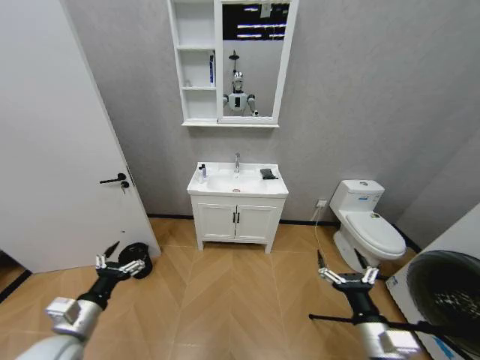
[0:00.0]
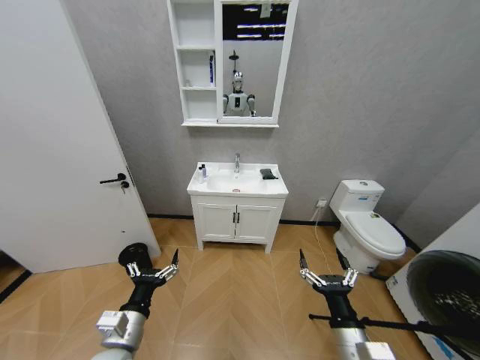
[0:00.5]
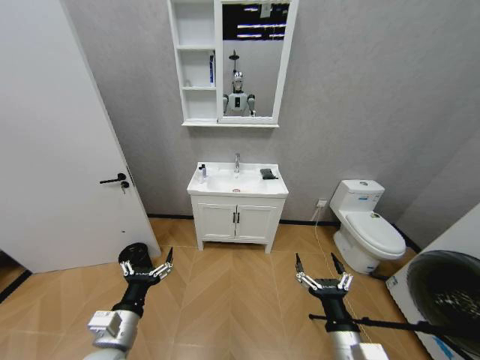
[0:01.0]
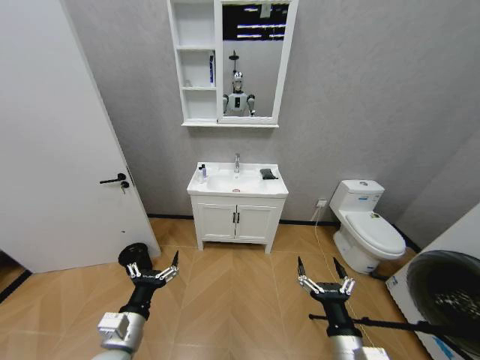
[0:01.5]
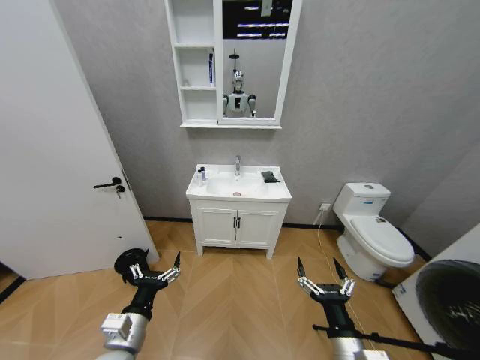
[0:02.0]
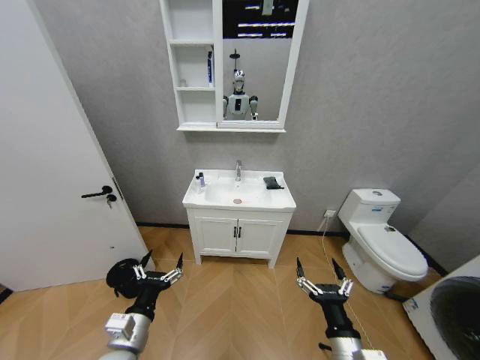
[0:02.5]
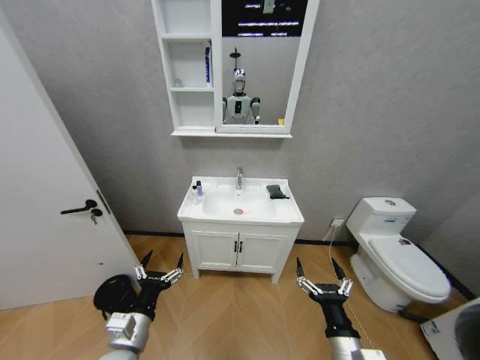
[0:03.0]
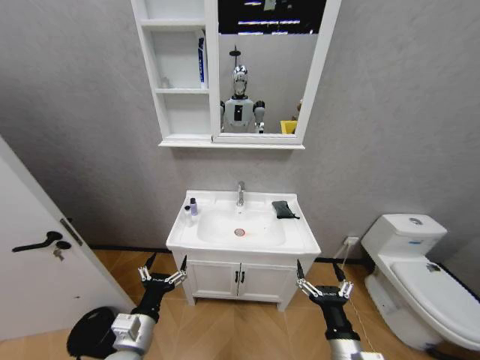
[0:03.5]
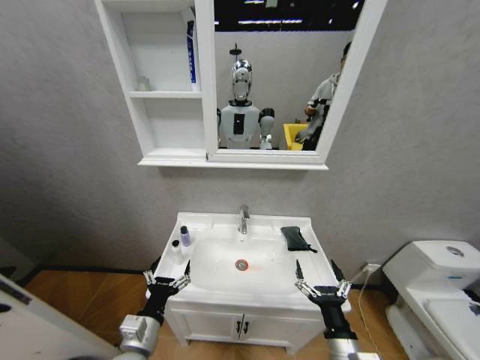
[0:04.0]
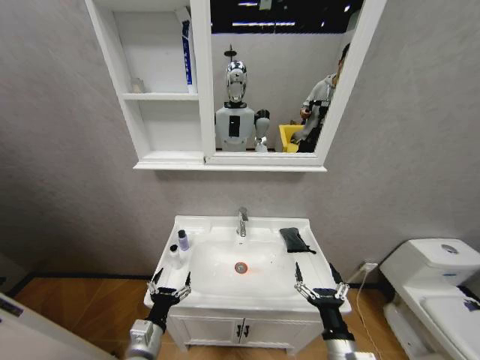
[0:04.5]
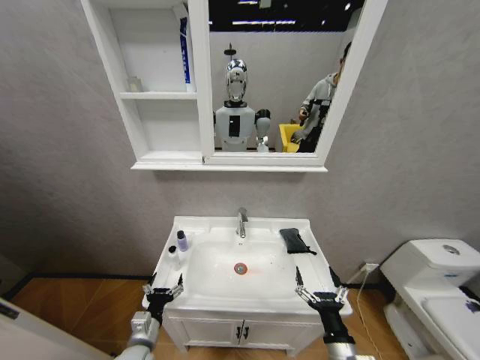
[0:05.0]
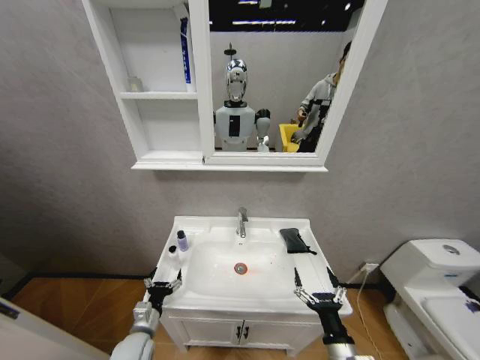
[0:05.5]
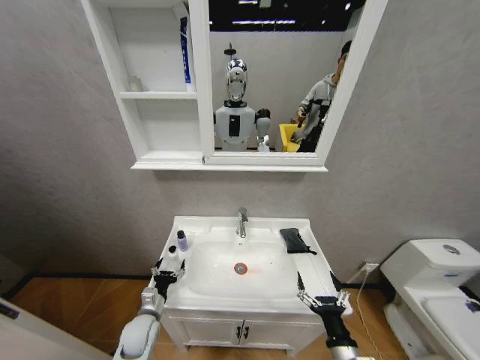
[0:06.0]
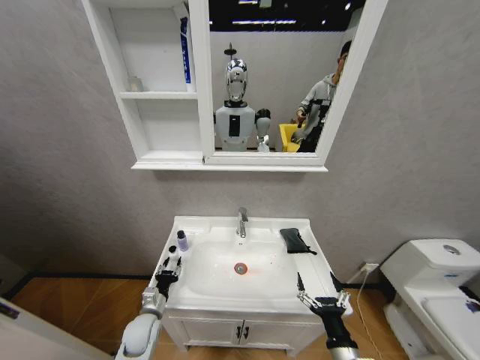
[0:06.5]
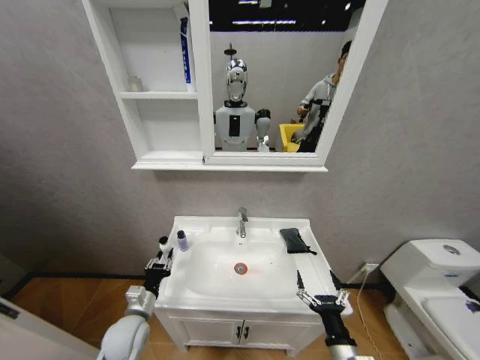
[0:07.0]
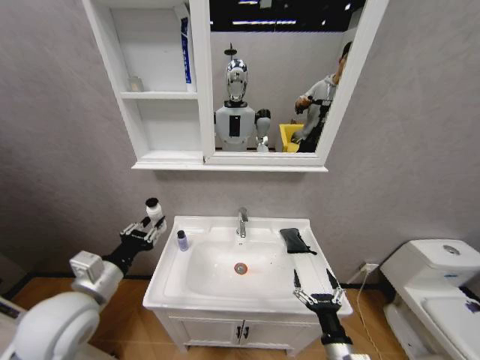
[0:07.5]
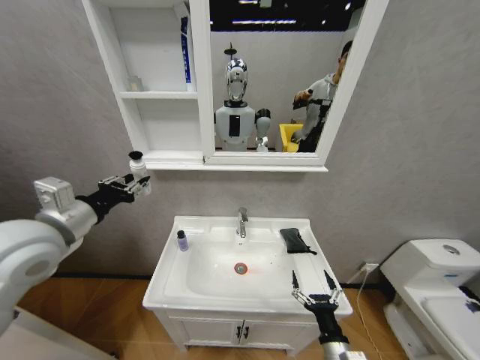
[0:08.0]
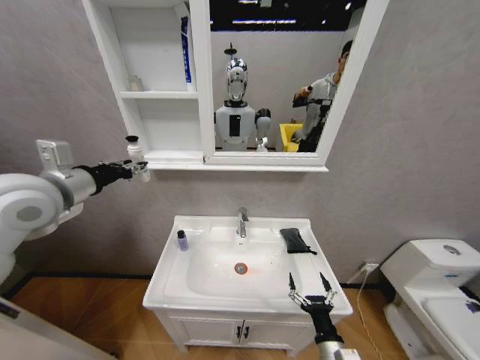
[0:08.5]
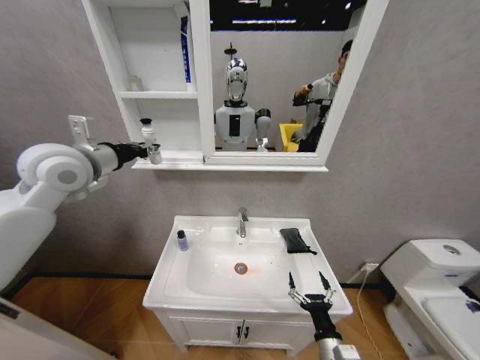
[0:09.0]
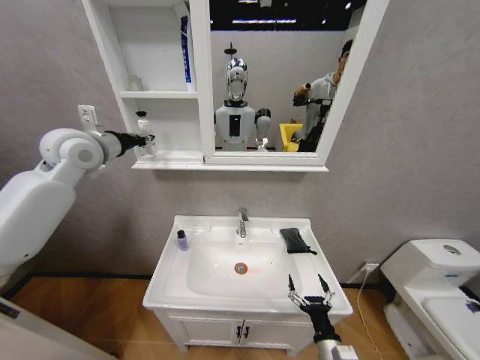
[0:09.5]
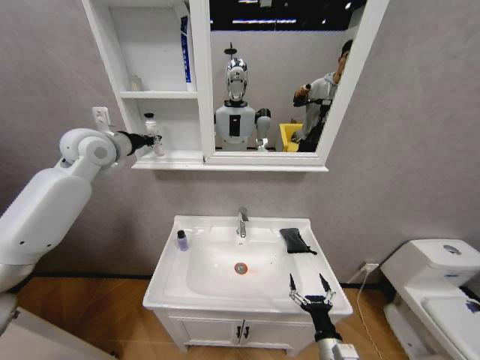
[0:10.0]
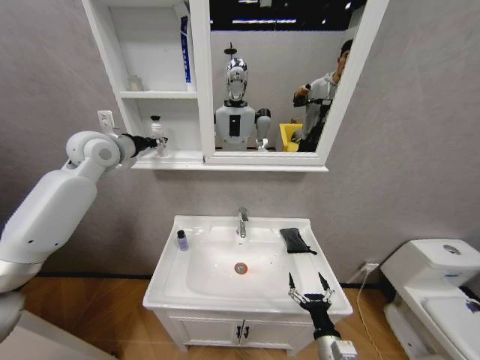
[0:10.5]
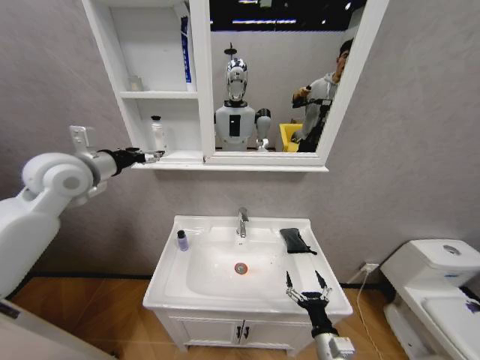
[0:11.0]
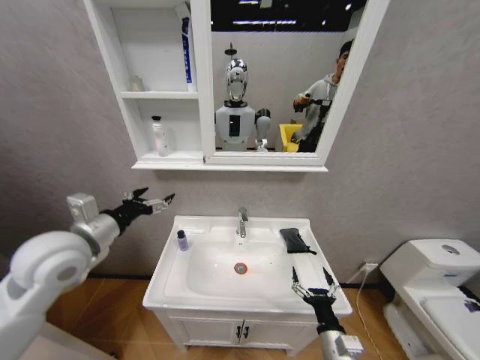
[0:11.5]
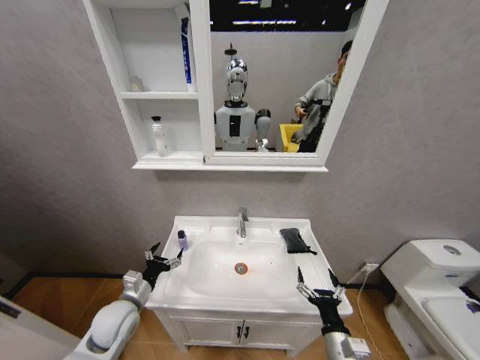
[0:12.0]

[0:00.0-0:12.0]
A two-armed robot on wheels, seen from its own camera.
Task of the whole recording: Move facial cleanser and shampoo from washbasin to cabinet, then wipe washbasin with towel.
0:04.0 to 0:06.0: The left gripper shifts about 15 cm downward and forward.
0:06.0 to 0:08.0: The left gripper travels upward by some 40 cm, and closes.
0:08.0 to 0:10.0: The left gripper goes roughly 20 cm forward and upward.
0:10.0 to 0:12.0: The left gripper shifts about 40 cm downward and backward, and opens.

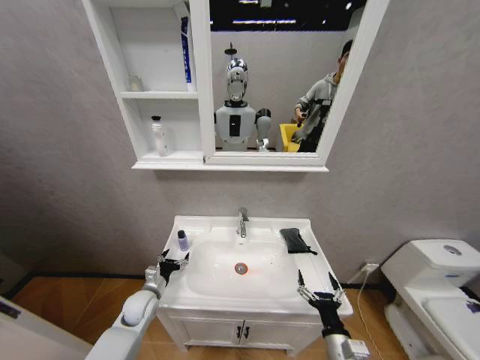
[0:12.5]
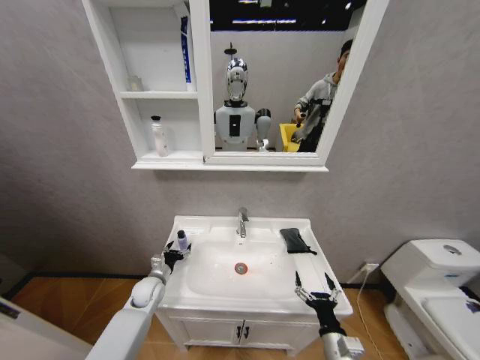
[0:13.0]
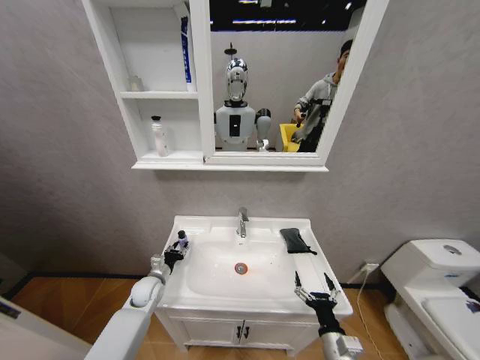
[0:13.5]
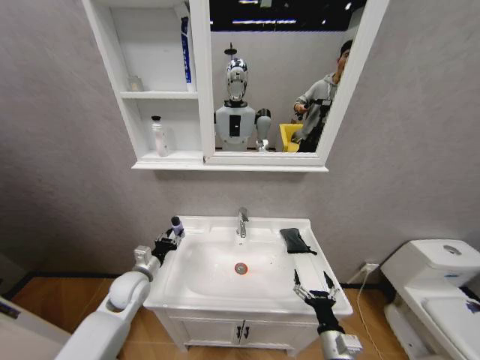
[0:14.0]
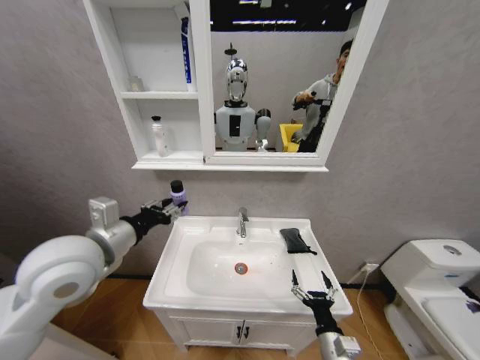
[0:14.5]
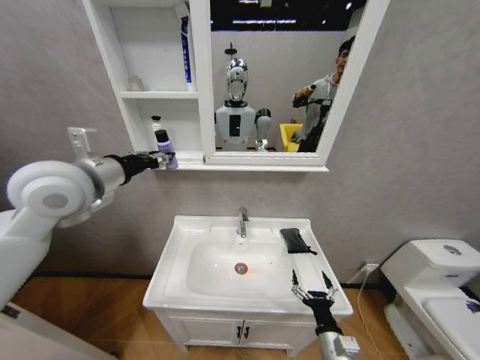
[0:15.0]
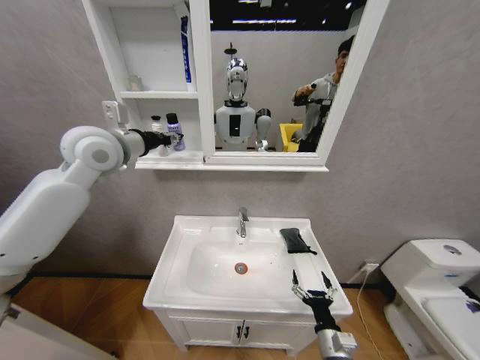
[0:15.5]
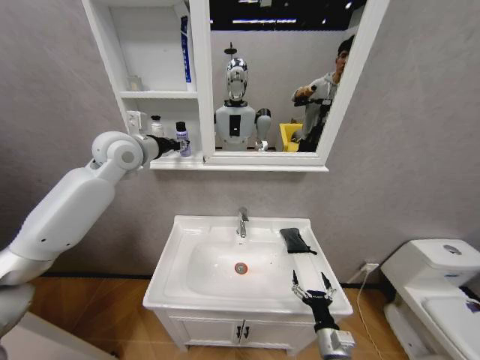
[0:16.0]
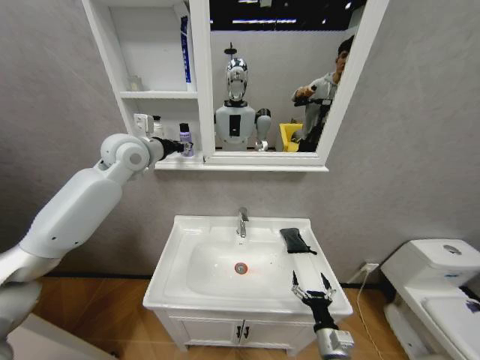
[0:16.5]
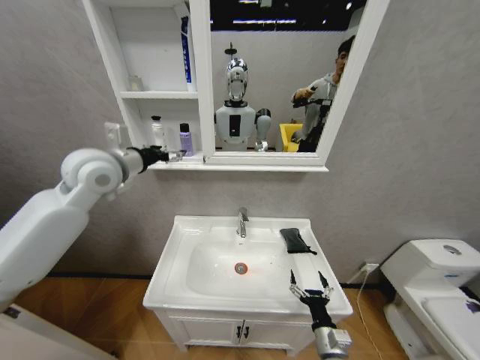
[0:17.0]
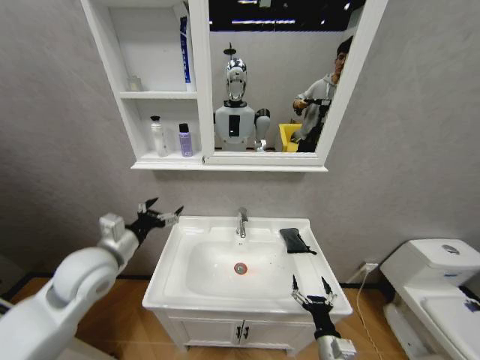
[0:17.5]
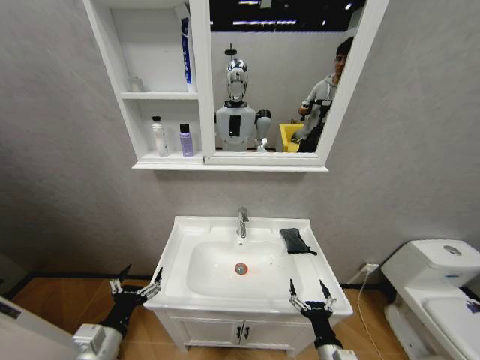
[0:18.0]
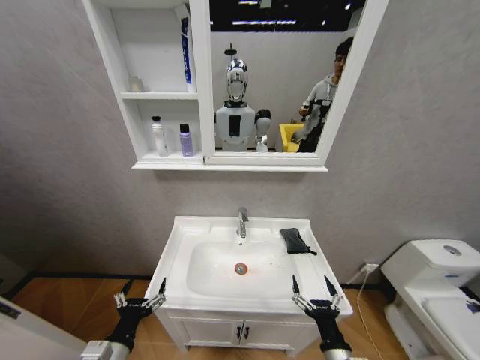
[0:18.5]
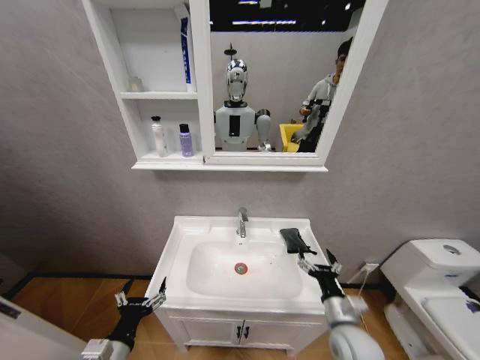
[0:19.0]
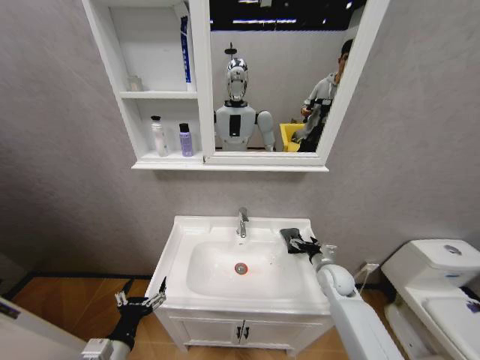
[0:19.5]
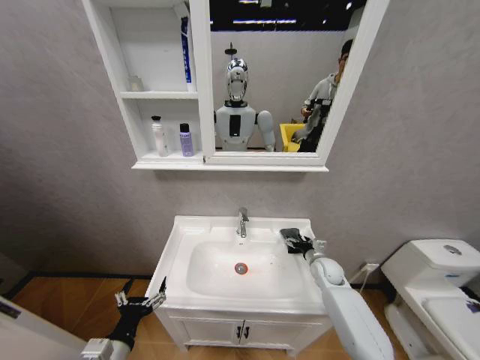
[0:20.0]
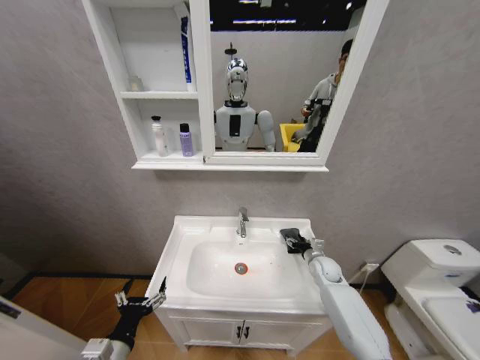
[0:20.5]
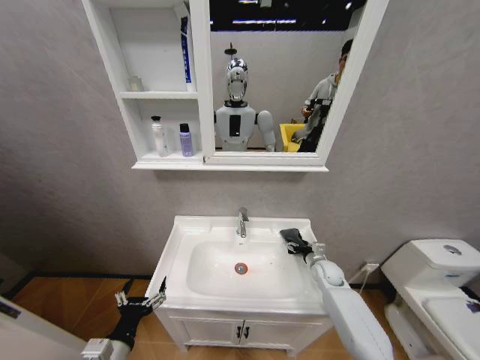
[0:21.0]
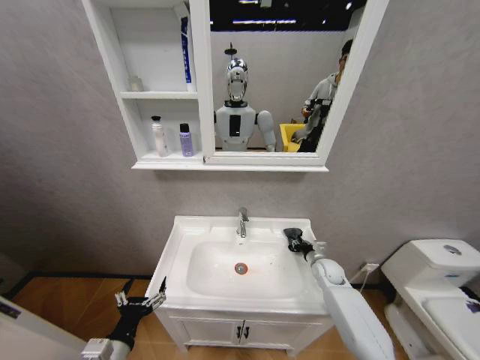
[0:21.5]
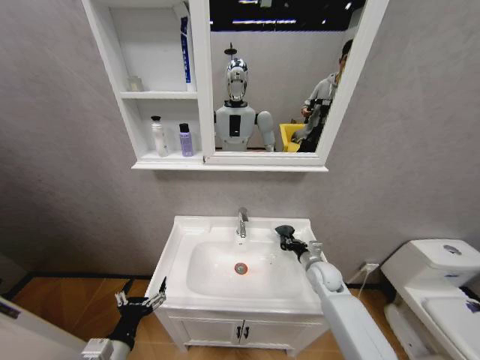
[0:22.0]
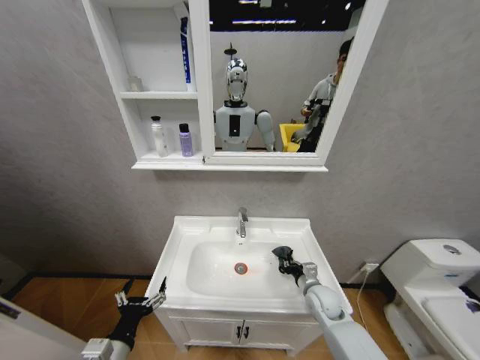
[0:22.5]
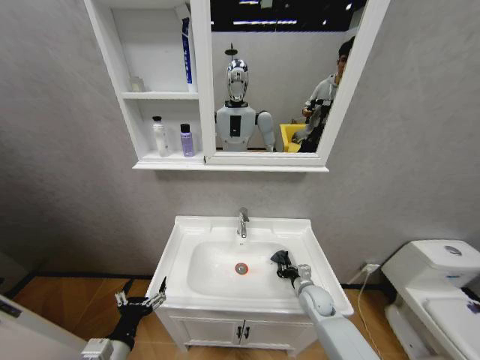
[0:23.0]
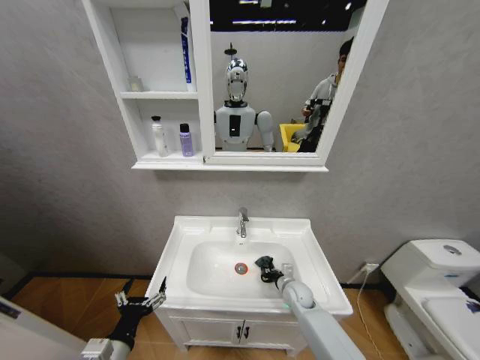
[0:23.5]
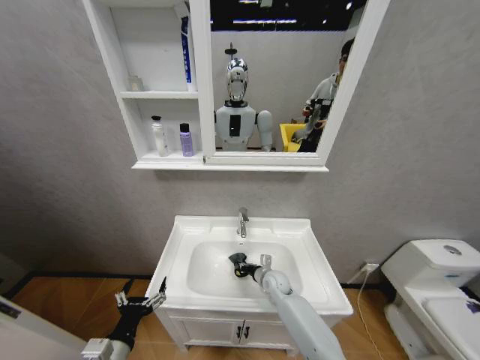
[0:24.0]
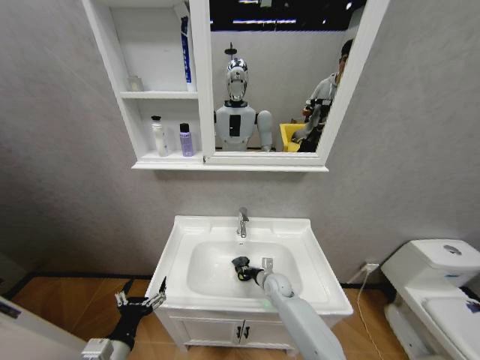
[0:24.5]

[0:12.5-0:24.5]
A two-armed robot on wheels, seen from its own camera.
Task of the whole recording: Move facial cleanser and shampoo from washbasin to cabinet, then wipe washbasin with towel.
0:12.5 to 0:14.5: The left gripper heads upward, covering about 35 cm, and closes its fingers.
0:14.5 to 0:16.5: The left gripper travels forward and upward by roughly 25 cm.
0:16.5 to 0:18.5: The left gripper travels downward and backward by some 50 cm, and opens, while the right gripper heads backward and upward, covering roughly 5 cm.
0:18.5 to 0:20.5: The right gripper is displaced forward by some 35 cm.
0:20.5 to 0:22.5: The right gripper is displaced backward and to the left by roughly 10 cm, and closes its fingers.
0:22.5 to 0:24.5: The right gripper goes approximately 15 cm to the left, forward and downward.

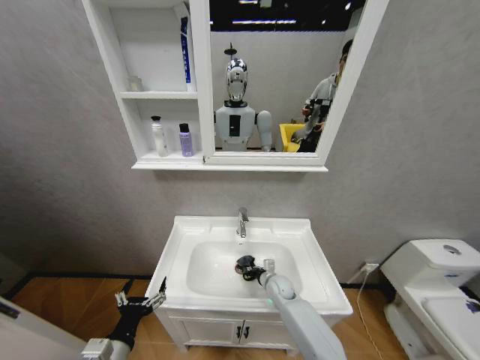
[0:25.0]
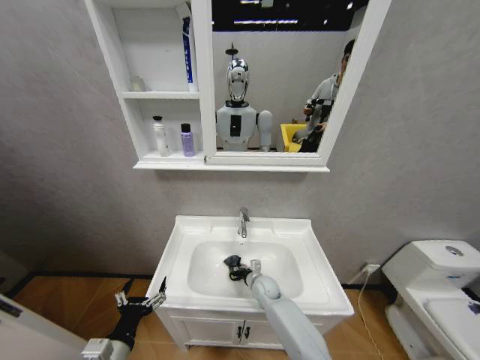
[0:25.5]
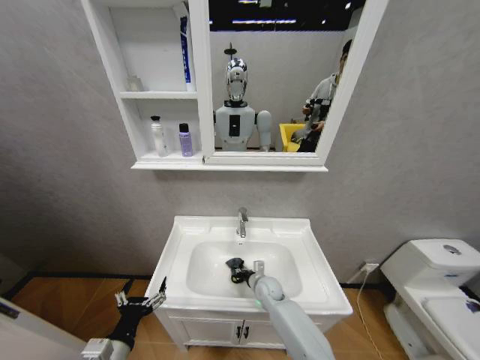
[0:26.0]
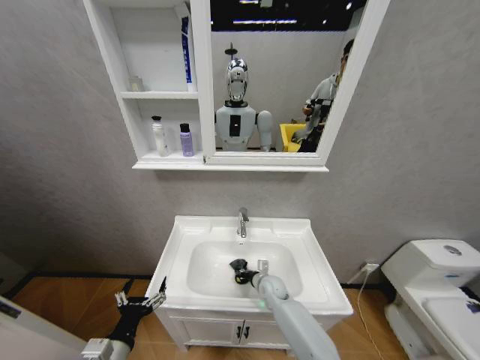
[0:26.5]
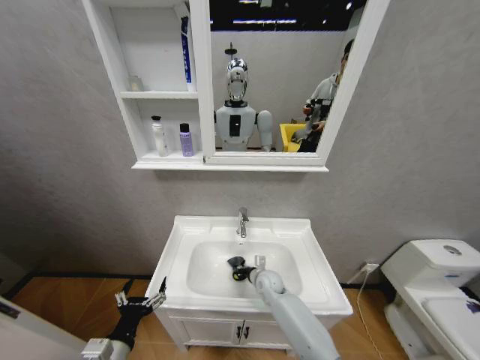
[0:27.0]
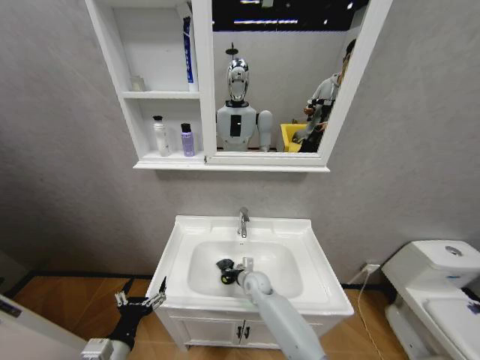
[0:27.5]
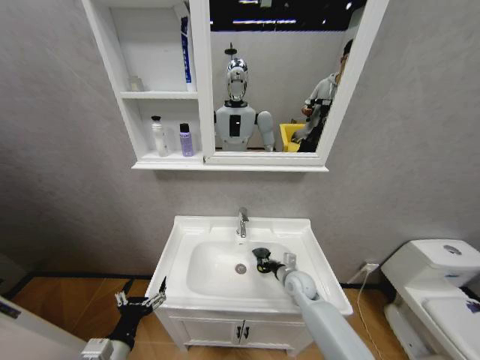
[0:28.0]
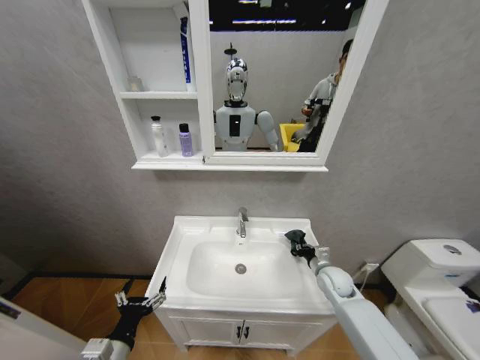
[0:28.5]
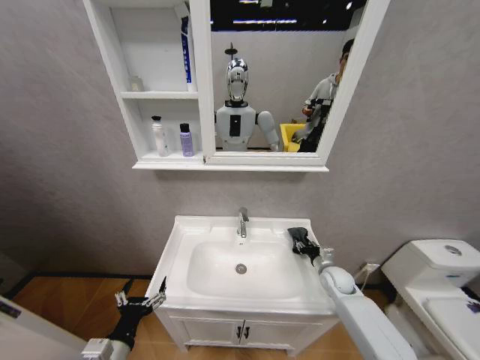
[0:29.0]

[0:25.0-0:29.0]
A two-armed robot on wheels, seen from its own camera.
Task of the whole recording: Move facial cleanser and shampoo from washbasin to cabinet, then wipe washbasin with towel.
0:27.0 to 0:29.0: The right gripper goes some 25 cm to the right.
